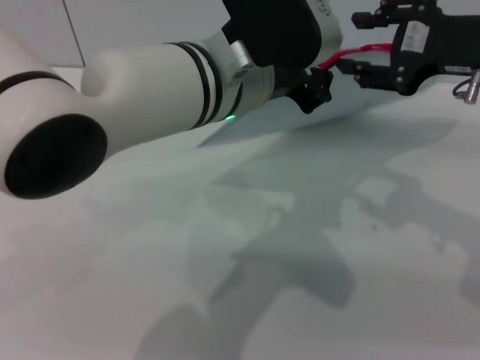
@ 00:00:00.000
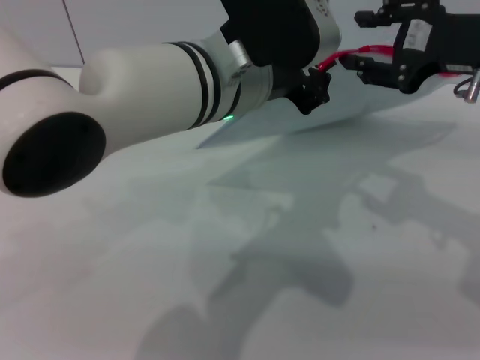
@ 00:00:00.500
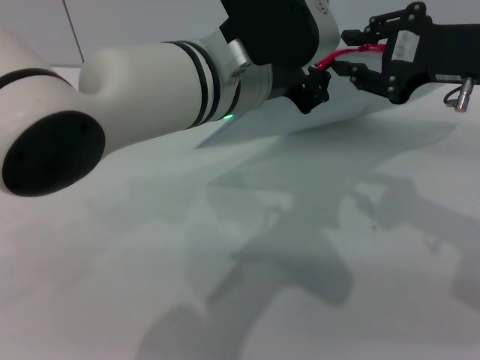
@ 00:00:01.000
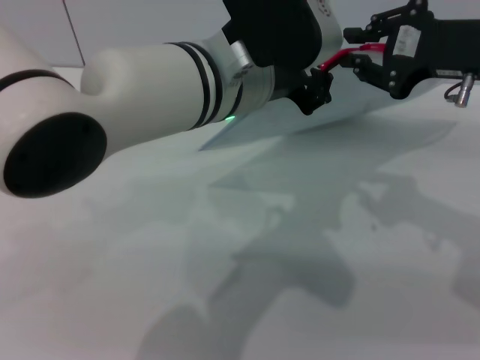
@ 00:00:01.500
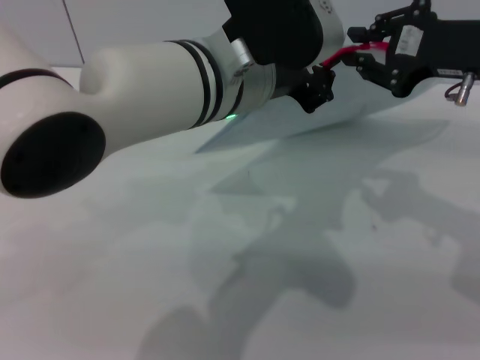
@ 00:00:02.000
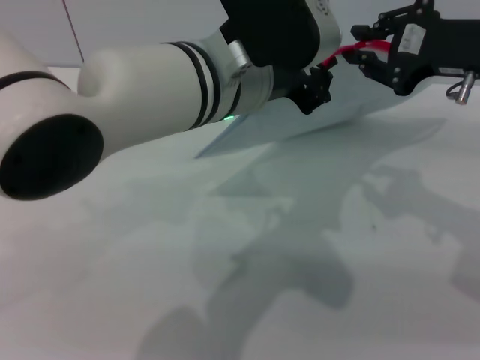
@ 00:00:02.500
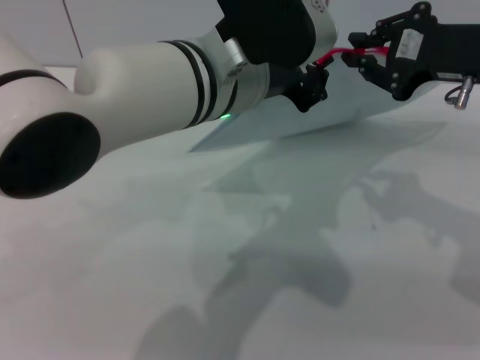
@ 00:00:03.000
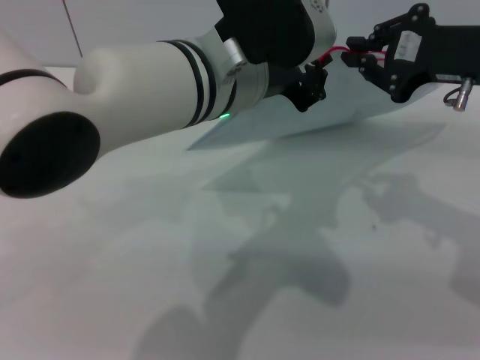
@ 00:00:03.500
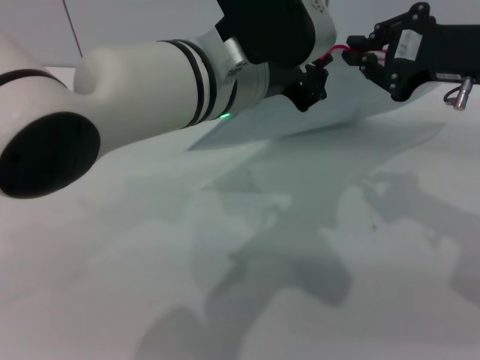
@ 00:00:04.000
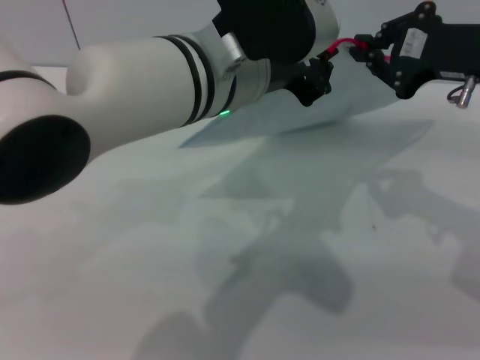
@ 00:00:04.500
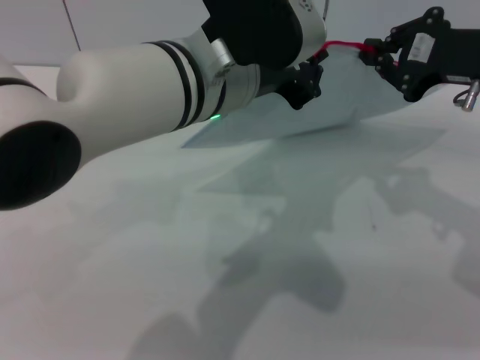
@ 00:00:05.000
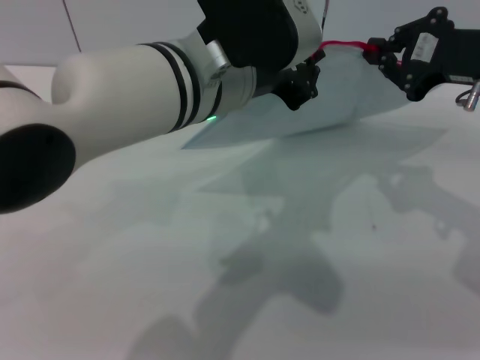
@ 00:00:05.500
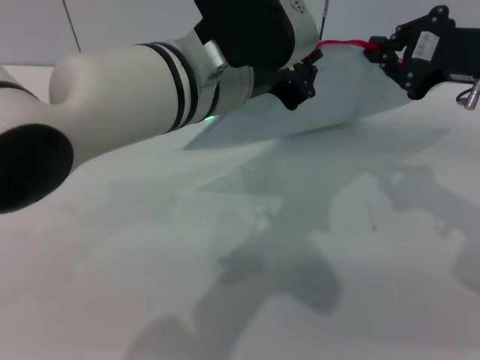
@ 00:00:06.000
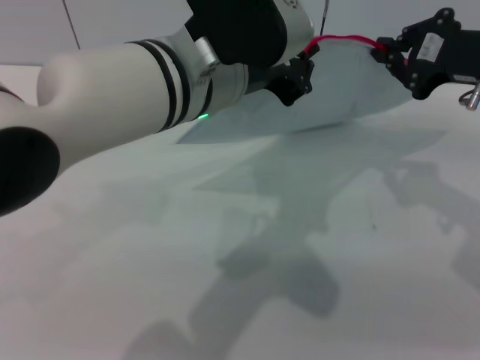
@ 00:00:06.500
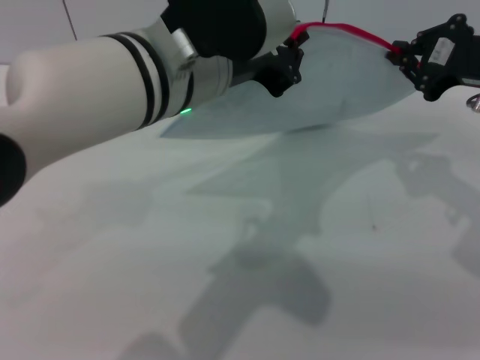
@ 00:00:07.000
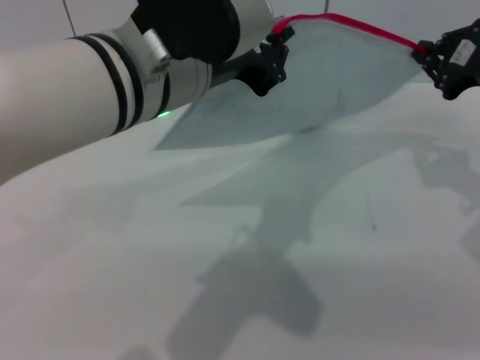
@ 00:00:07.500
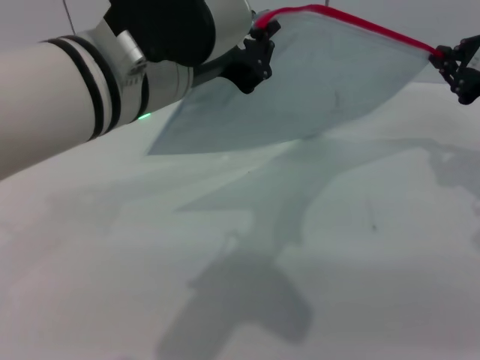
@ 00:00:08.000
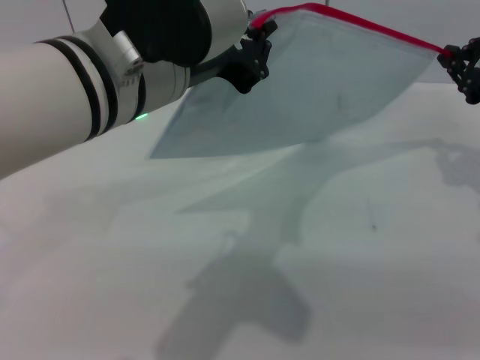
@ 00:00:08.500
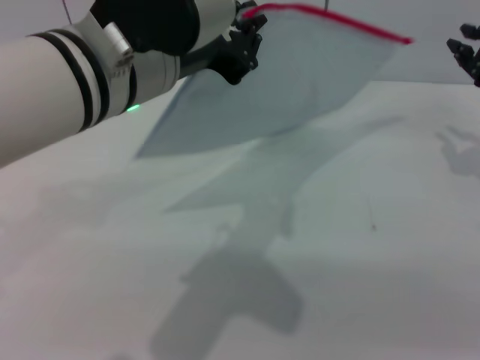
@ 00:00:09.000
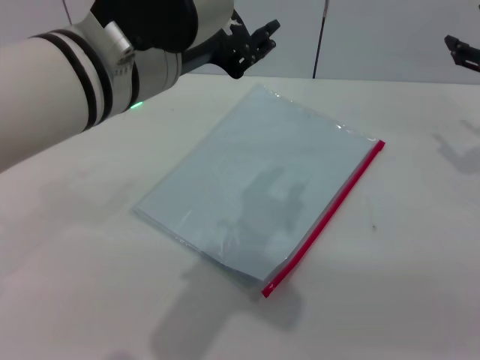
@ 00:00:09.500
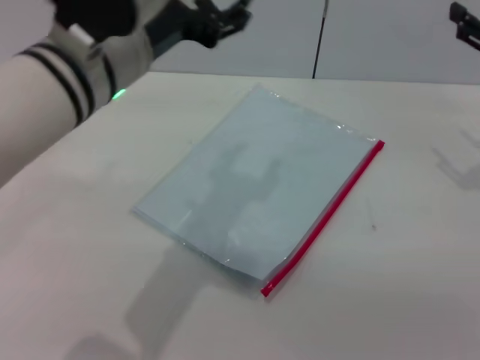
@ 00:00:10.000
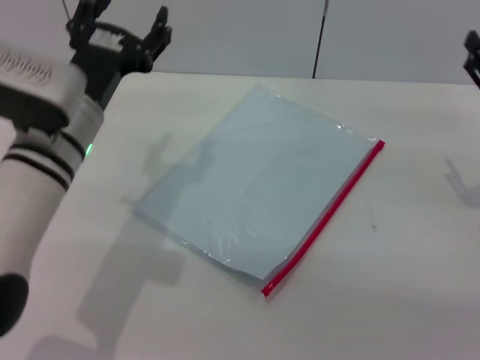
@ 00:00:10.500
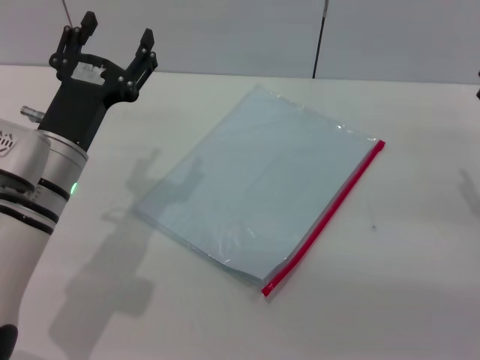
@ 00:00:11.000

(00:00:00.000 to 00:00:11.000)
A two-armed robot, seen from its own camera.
Step, 00:00:00.000 - 00:00:08.500: Pulling up the zipper on the transparent plastic bag with the right gripper to close it.
00:00:00.000 - 00:00:02.000: The right gripper closes its fingers.
00:00:02.000 - 00:00:03.500: Neither gripper changes place.
00:00:03.500 - 00:00:05.500: The grippers stay close to where they were, moving slightly.
00:00:05.500 - 00:00:07.500: The right gripper ends up about 5 cm from where it was.
00:00:07.500 - 00:00:09.000: There are only small adjustments of the grippers.
00:00:09.000 - 00:00:11.000: The right gripper moves downward and backward, roughly 15 cm, and opens its fingers; the left gripper is displaced downward and to the left by about 20 cm, and opens.

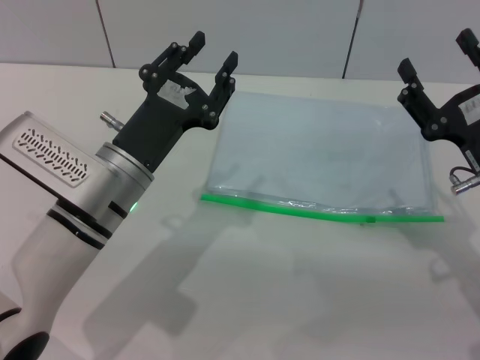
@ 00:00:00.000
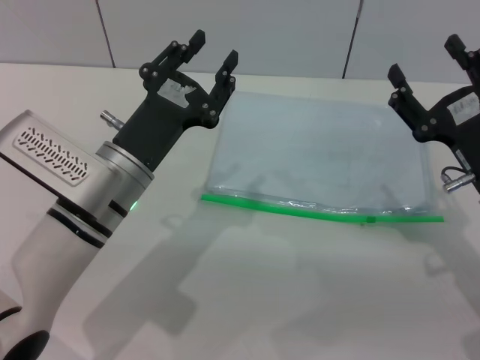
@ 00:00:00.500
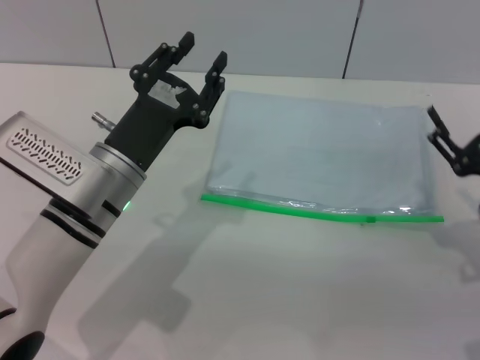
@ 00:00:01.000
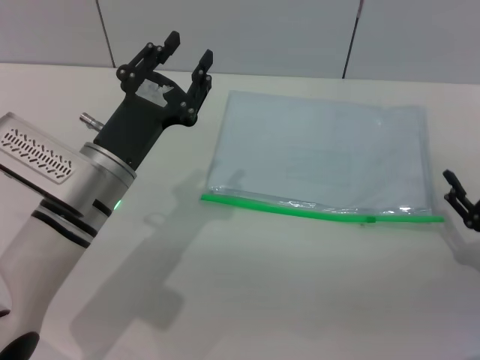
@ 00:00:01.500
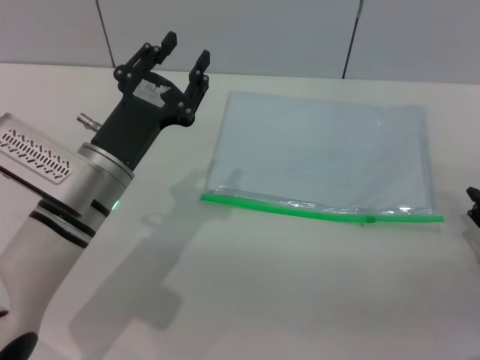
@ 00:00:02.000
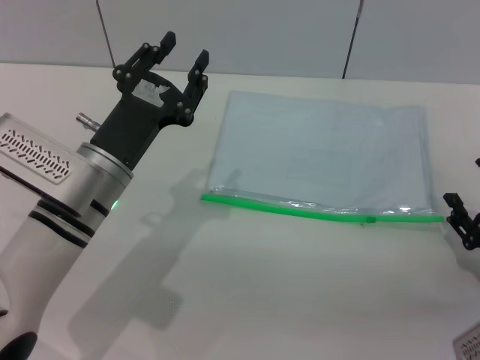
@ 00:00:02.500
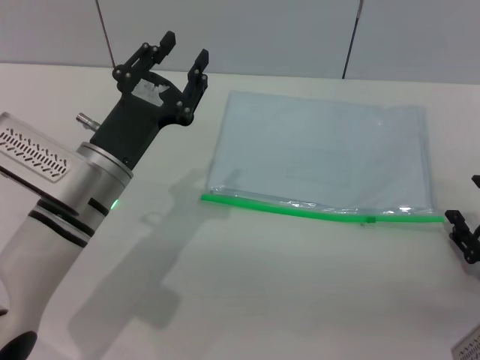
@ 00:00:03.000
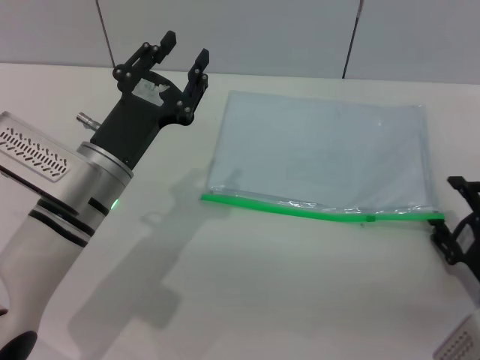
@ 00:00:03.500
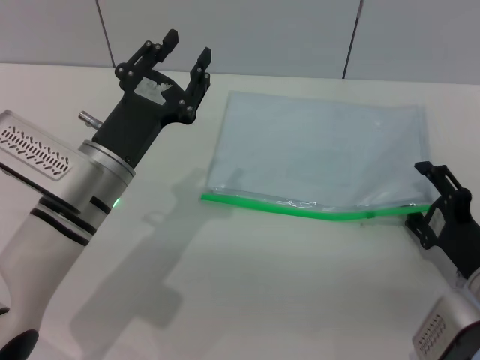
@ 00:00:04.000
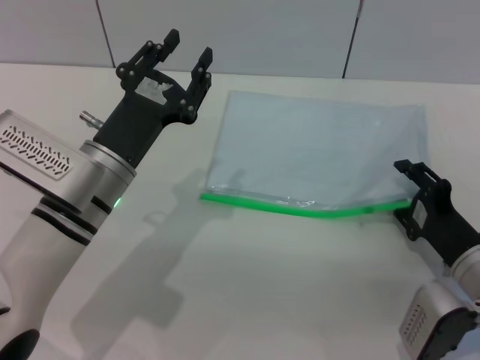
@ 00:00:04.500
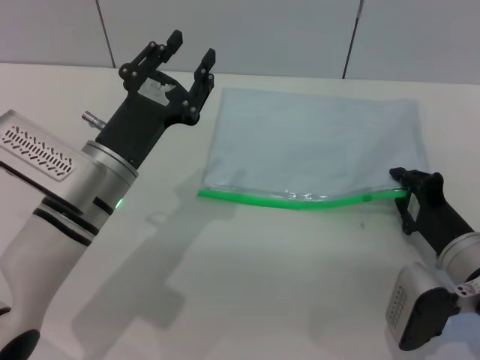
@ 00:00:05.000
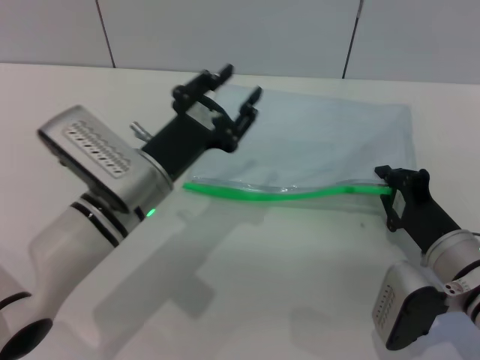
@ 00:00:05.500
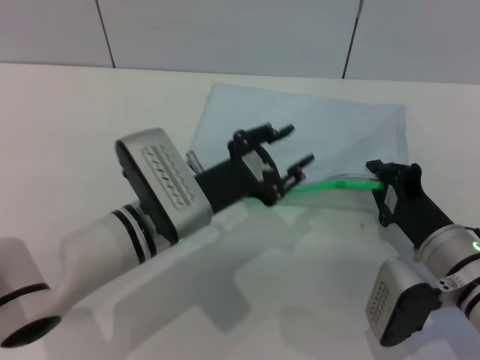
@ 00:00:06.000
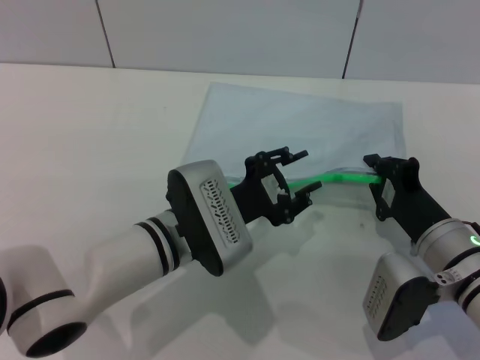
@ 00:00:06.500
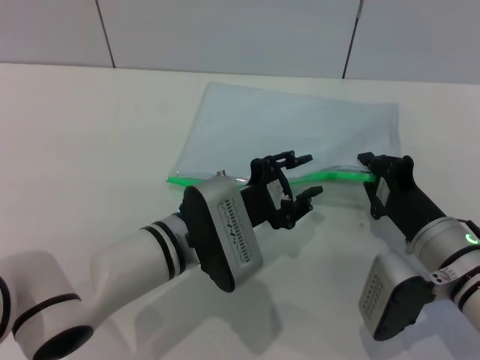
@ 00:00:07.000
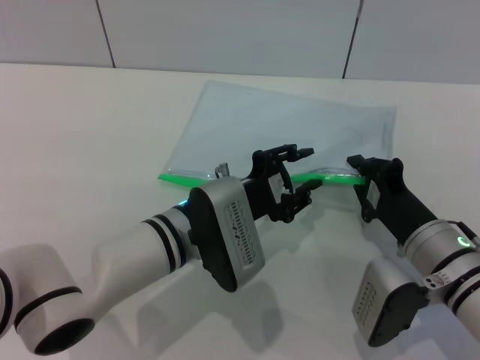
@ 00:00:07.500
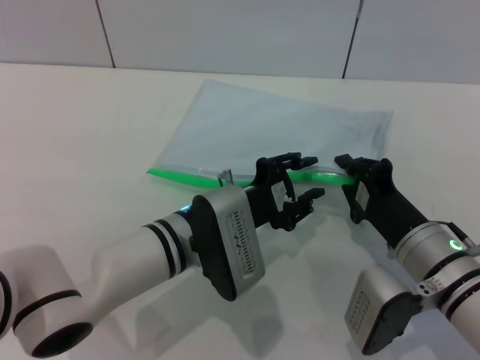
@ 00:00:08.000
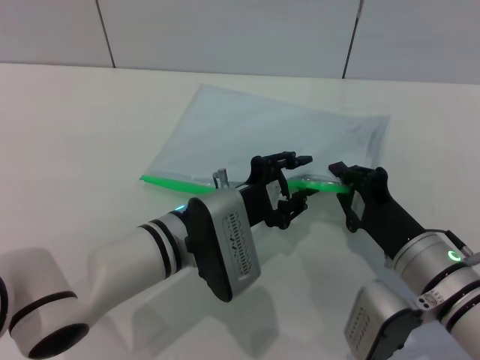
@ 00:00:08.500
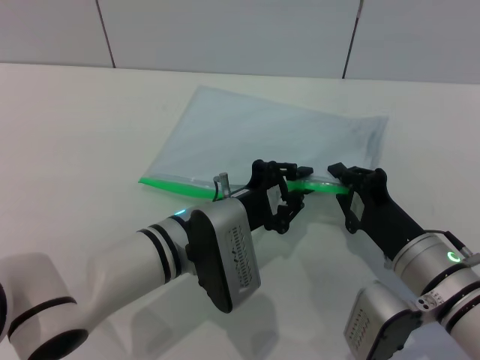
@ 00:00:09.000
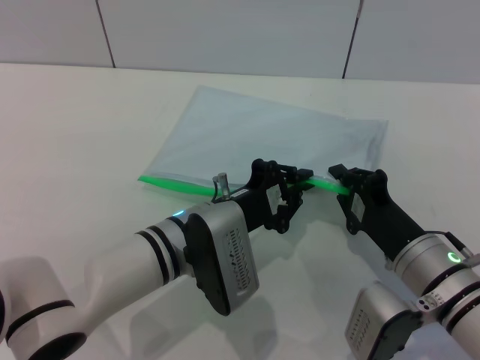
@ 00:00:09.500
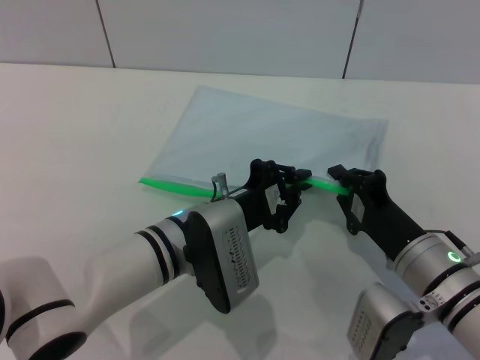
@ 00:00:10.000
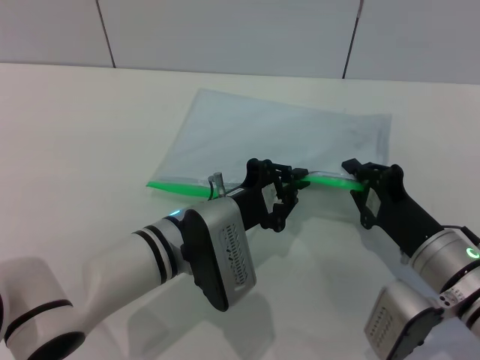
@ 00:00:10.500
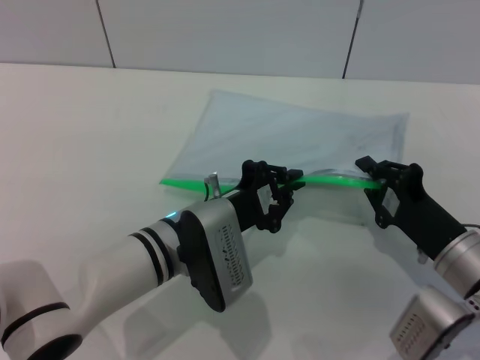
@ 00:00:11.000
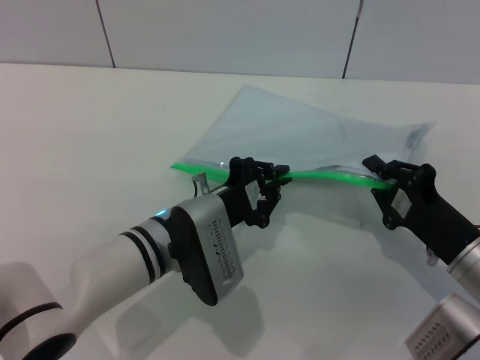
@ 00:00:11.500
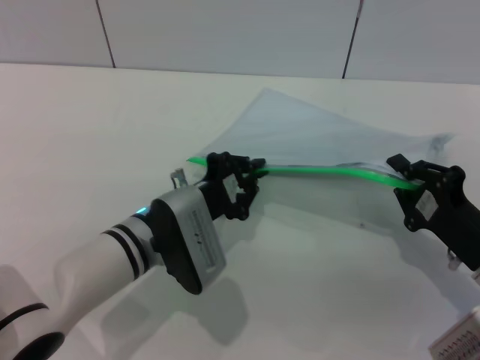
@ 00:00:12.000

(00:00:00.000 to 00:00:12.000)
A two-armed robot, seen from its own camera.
Step, 00:00:00.000 - 00:00:05.500: Pick up the transparent plastic bag with the right gripper.
00:00:00.000 - 00:00:02.000: The right gripper shifts some 10 cm to the right, downward and backward.
00:00:02.000 - 00:00:04.000: The right gripper travels to the left by approximately 5 cm.
00:00:04.000 - 00:00:06.000: The left gripper moves to the right, approximately 5 cm; the right gripper moves to the left, about 5 cm, and closes.
00:00:08.000 - 00:00:10.000: The left gripper closes.
00:00:10.000 - 00:00:12.000: The right gripper travels to the right by roughly 10 cm.

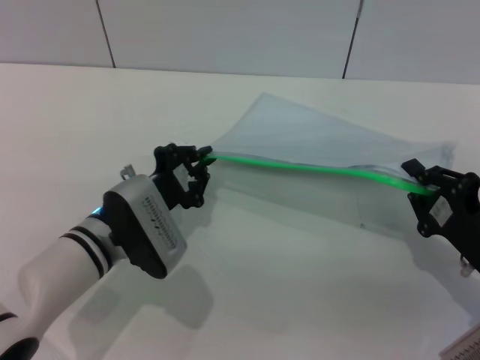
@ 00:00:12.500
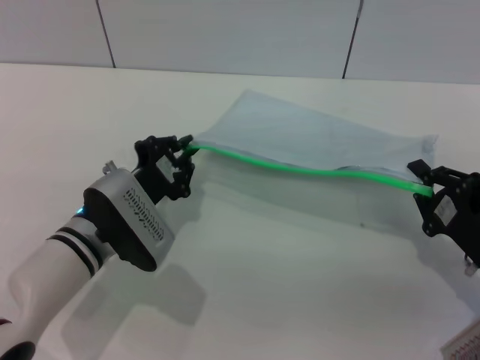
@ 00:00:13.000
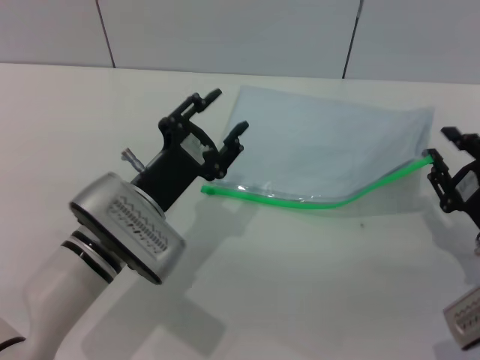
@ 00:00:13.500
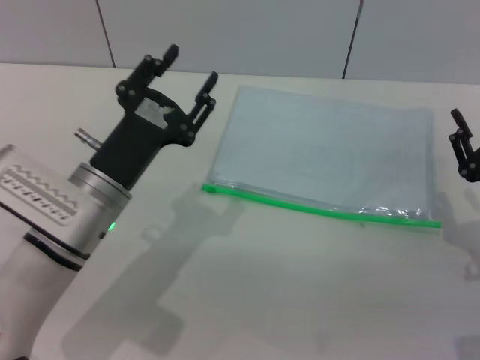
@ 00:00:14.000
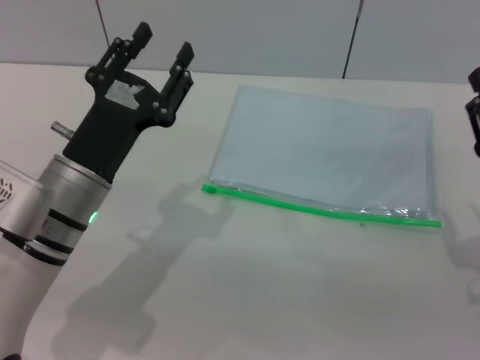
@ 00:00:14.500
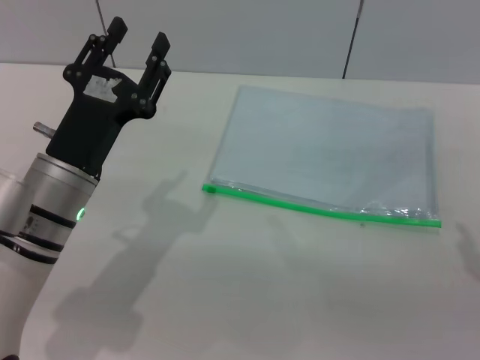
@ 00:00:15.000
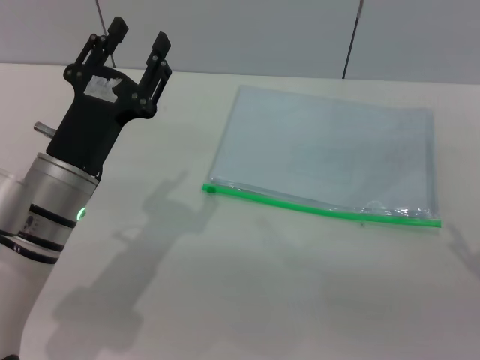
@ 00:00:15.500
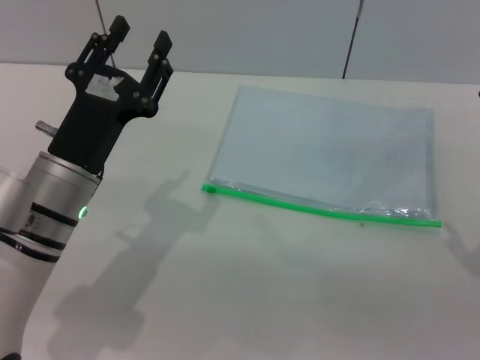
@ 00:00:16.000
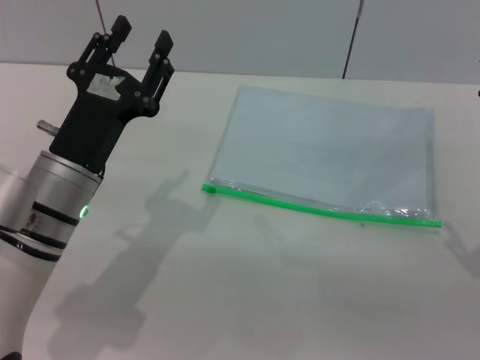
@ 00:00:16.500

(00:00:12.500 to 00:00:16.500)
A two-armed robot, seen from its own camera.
Step, 00:00:13.500 - 00:00:14.000: Place the transparent plastic bag.
00:00:12.500 - 00:00:14.500: The right gripper opens up. Meanwhile the left gripper heads upward, covering approximately 5 cm, and opens its fingers.
00:00:14.500 - 00:00:16.500: The right gripper opens its fingers.
